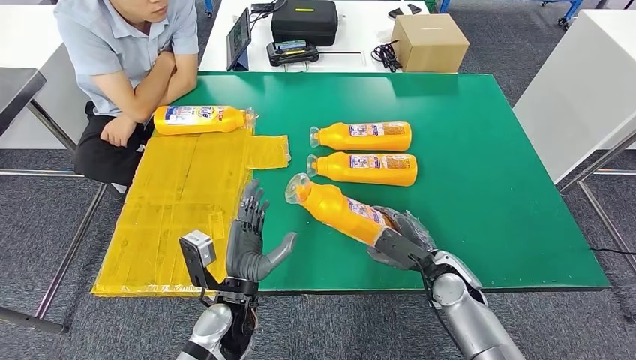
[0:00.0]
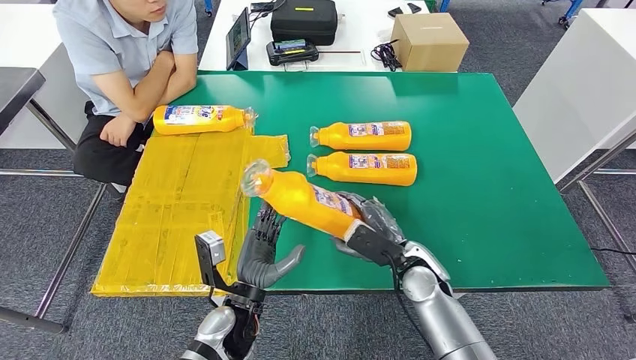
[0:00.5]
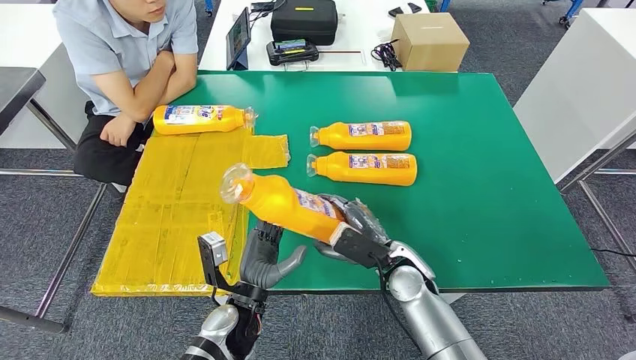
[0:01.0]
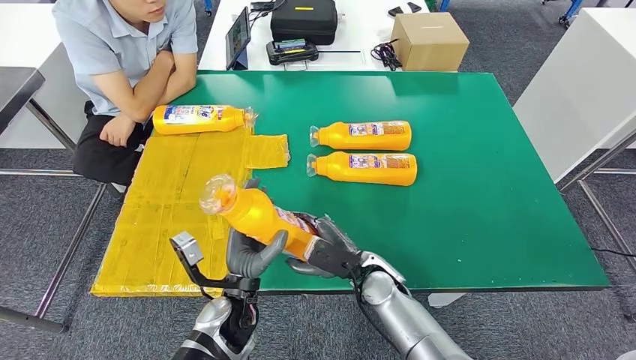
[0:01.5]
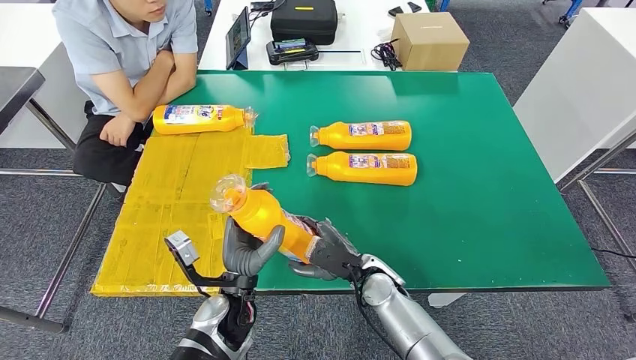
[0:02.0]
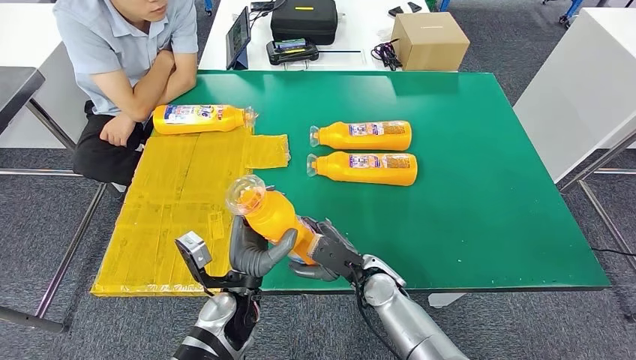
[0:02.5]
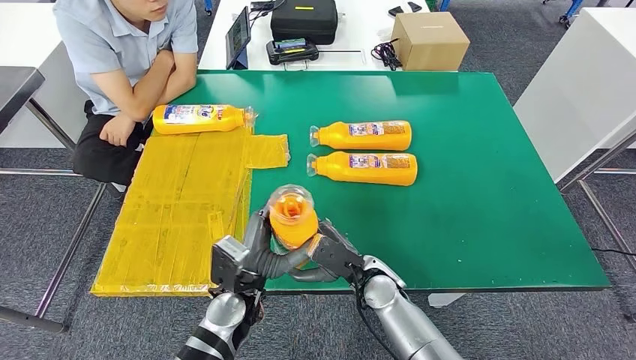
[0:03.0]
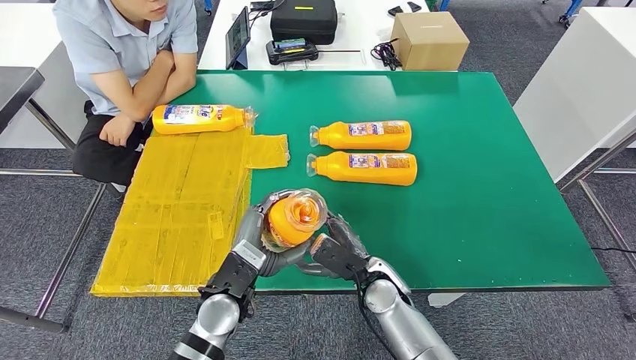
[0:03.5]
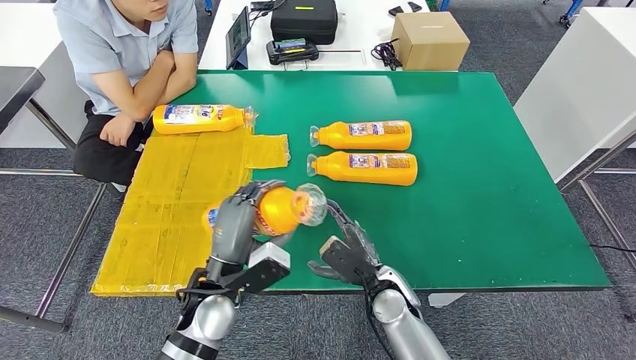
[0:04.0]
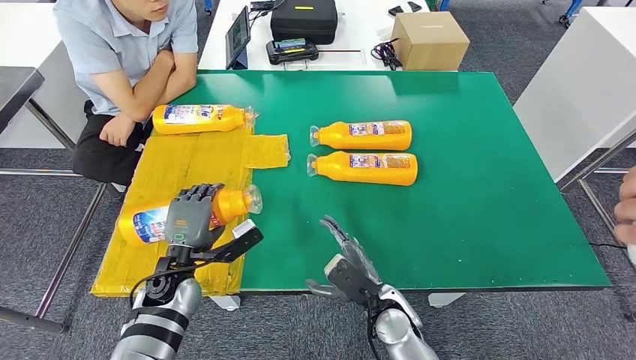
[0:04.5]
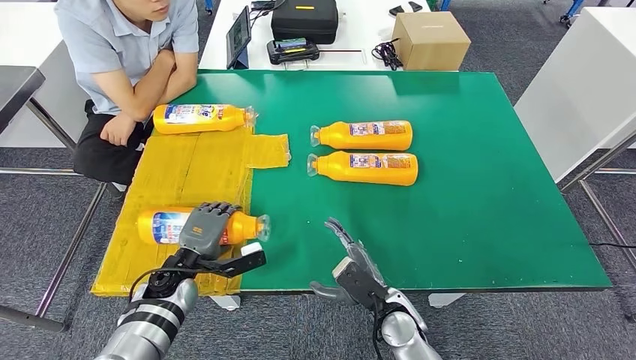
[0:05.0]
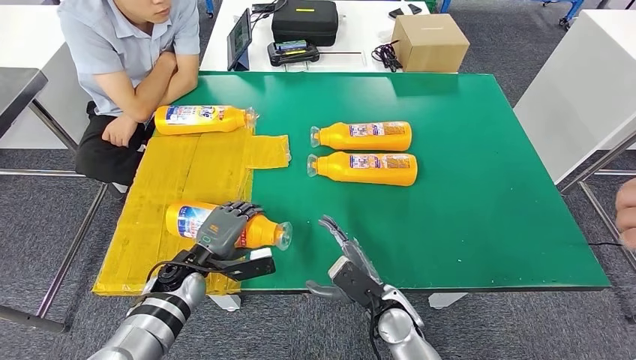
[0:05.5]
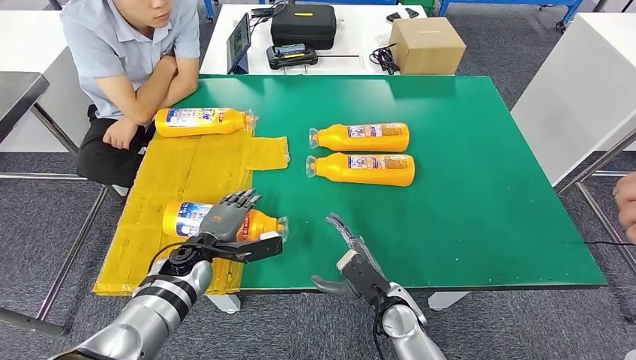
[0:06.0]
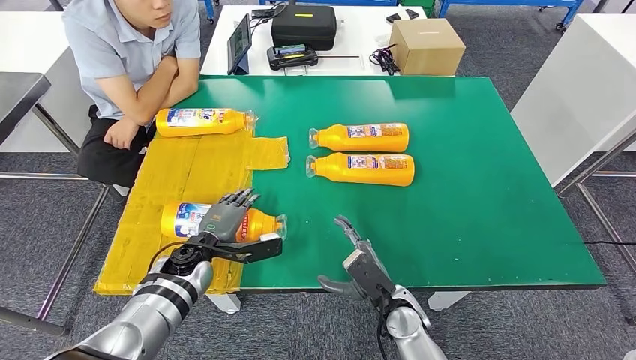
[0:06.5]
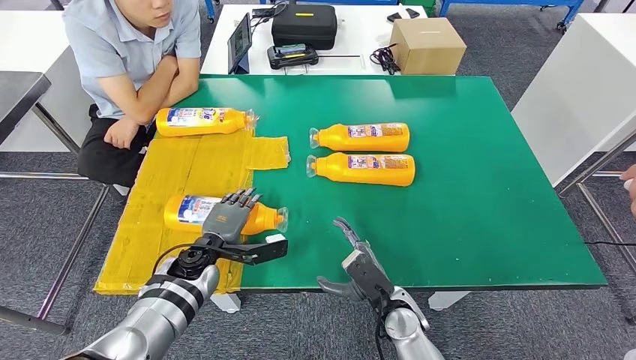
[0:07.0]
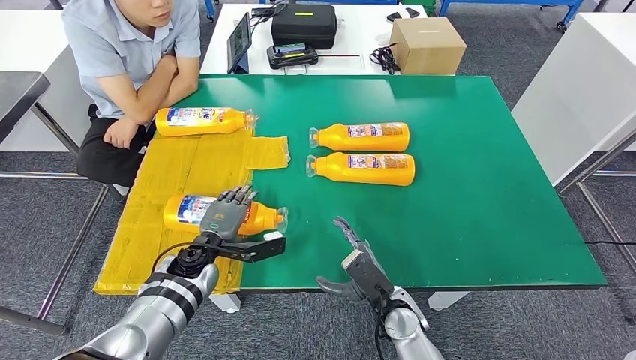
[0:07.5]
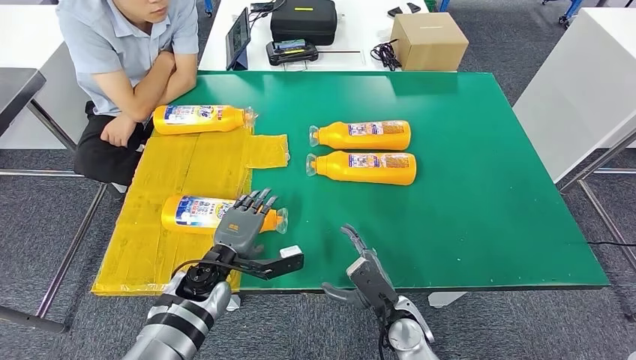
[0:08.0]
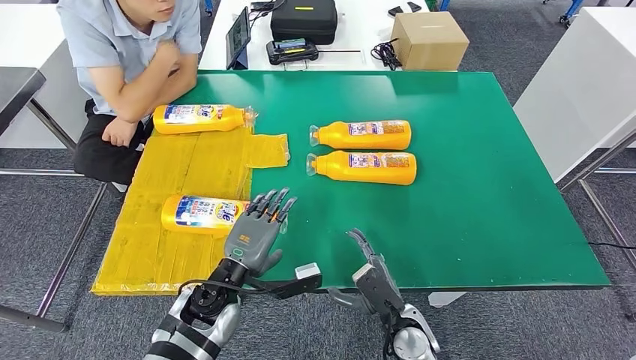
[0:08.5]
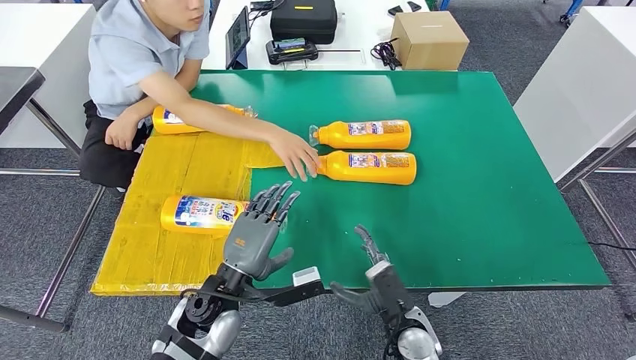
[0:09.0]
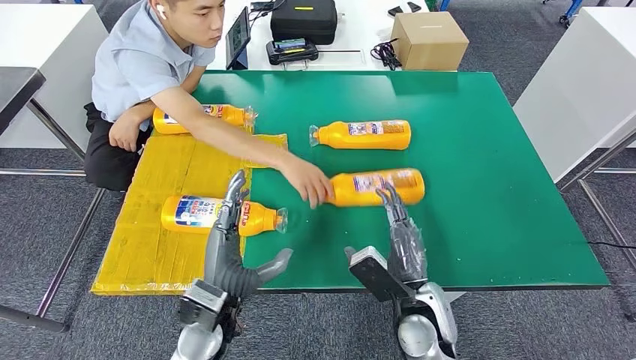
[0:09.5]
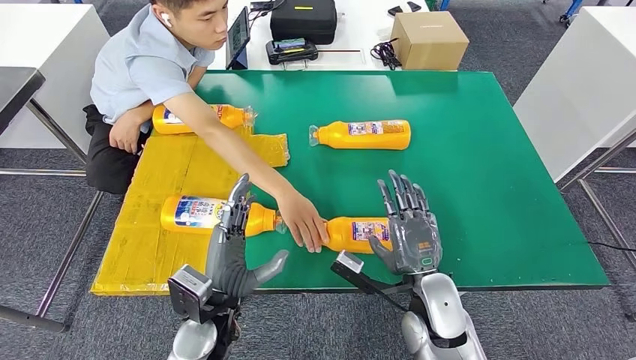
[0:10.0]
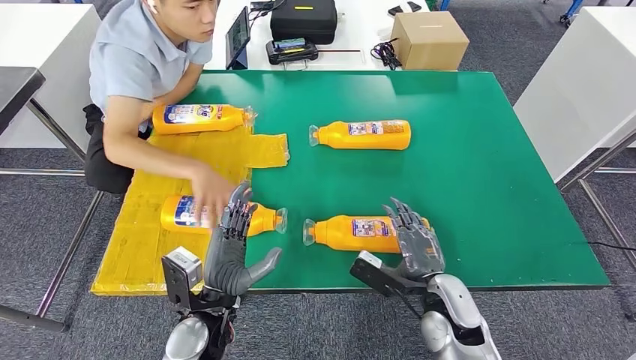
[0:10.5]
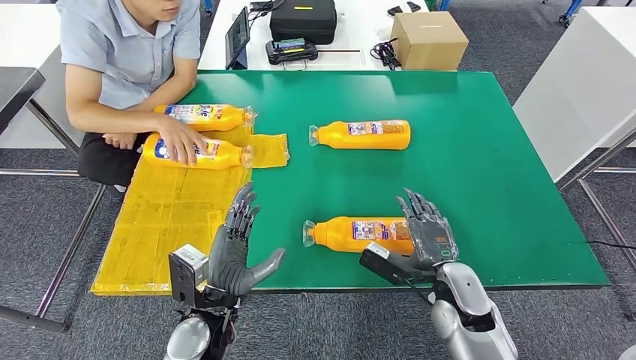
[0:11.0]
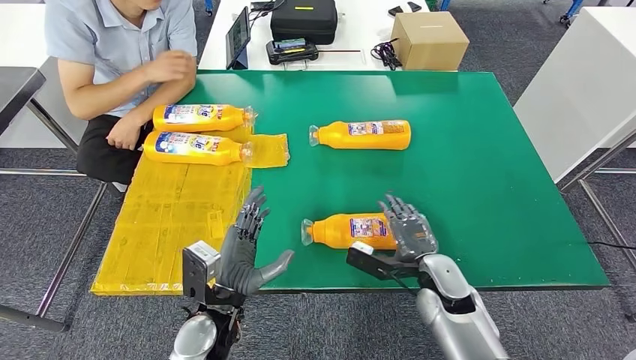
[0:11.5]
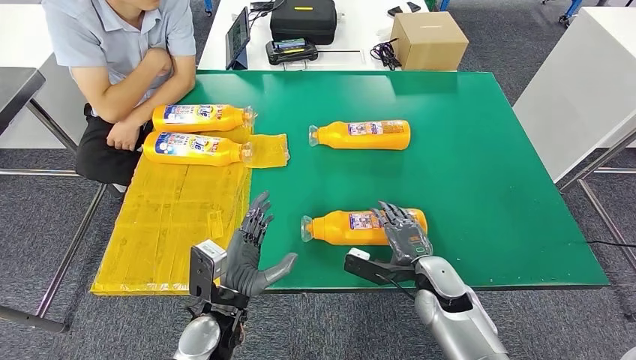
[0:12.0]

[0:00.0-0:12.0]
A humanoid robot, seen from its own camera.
Step, 0:01.0 to 0:04.5: Flip the fast-moving consumer goods bottle to the front side.
0:00.0 to 0:02.0: The right hand shifts about 15 cm to the left.
0:02.0 to 0:04.0: The left hand heads upward, covering roughly 5 cm.

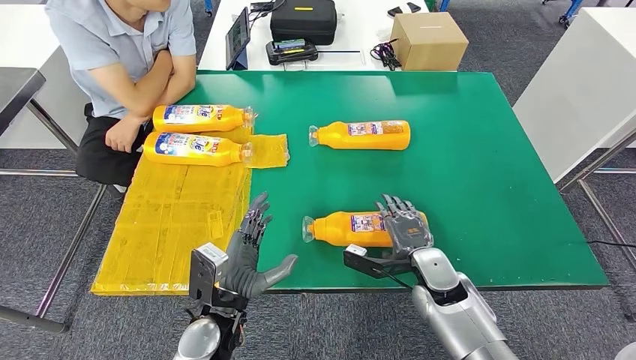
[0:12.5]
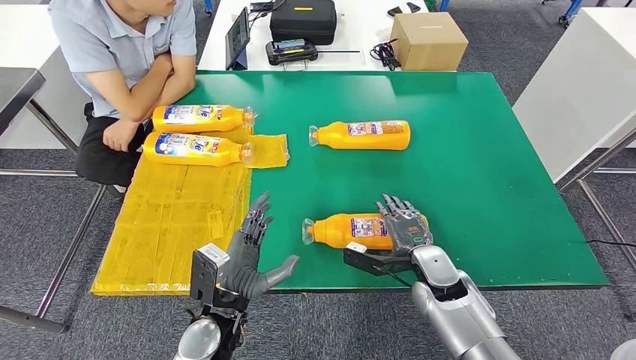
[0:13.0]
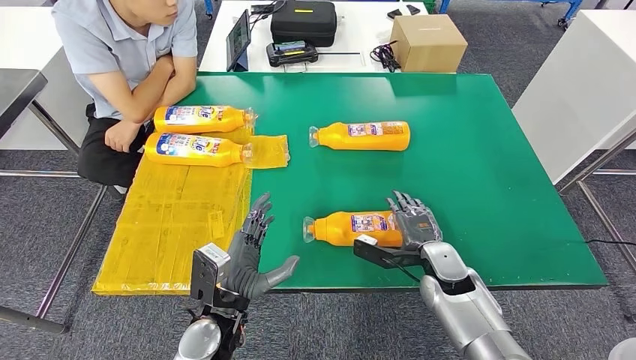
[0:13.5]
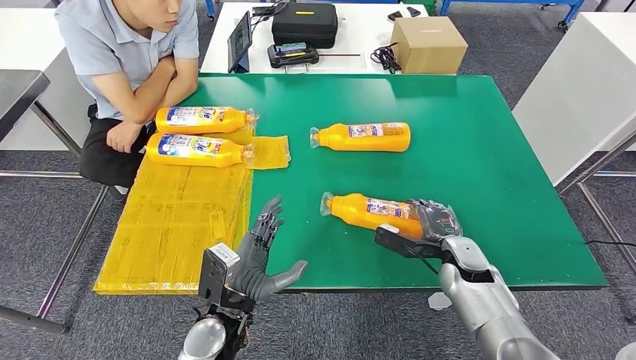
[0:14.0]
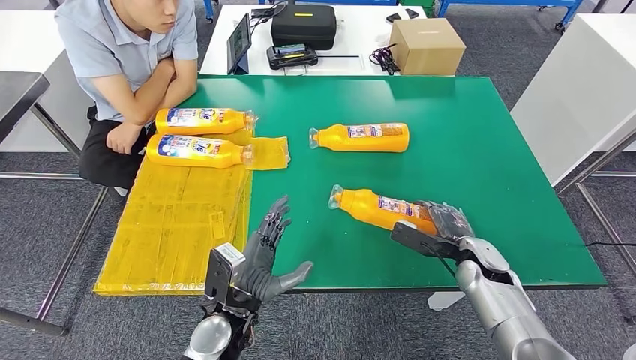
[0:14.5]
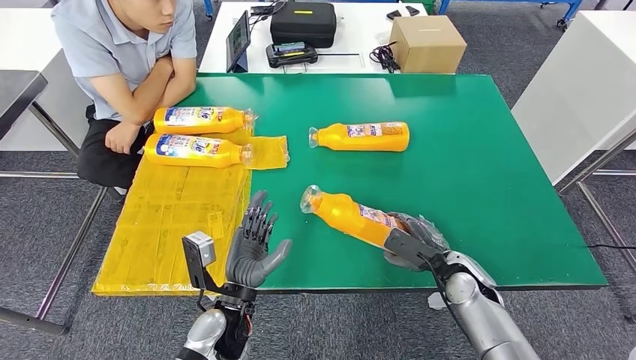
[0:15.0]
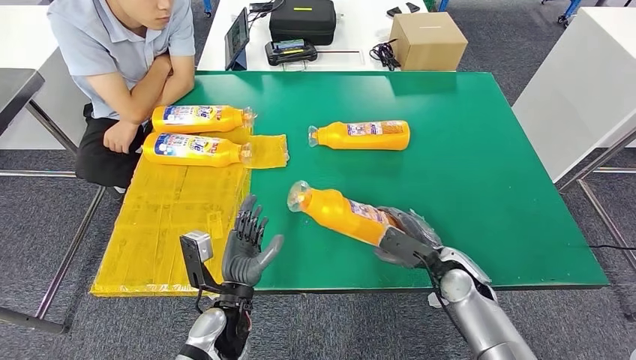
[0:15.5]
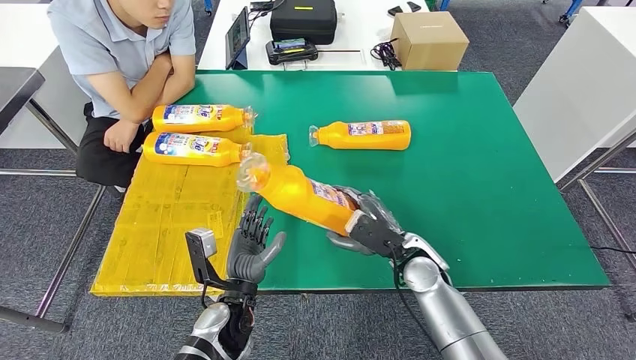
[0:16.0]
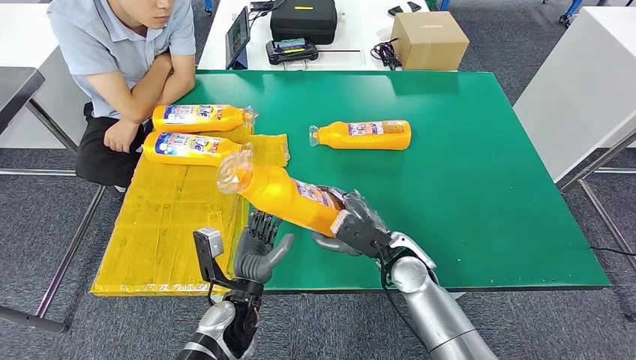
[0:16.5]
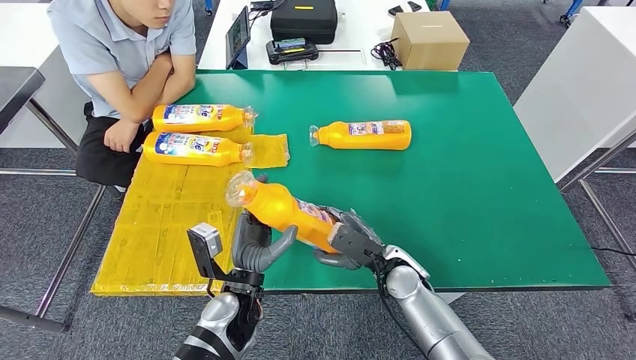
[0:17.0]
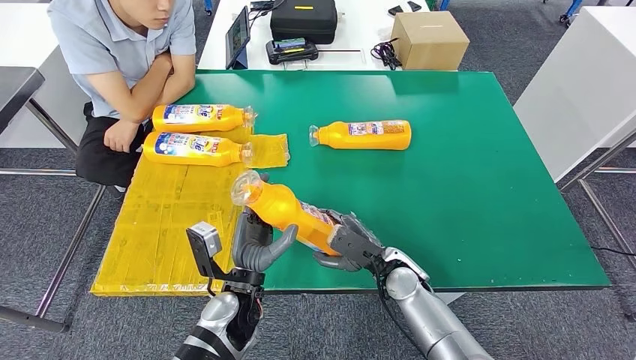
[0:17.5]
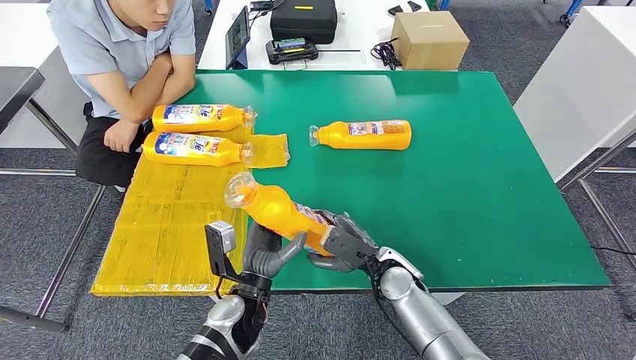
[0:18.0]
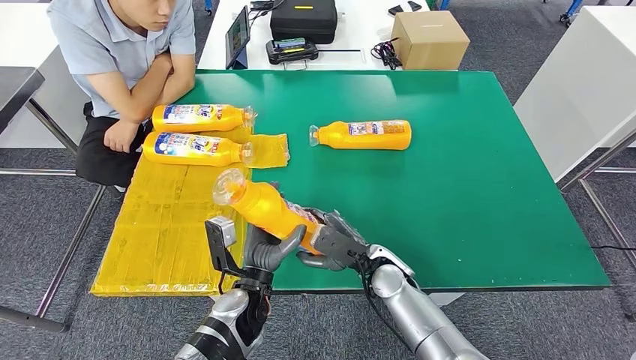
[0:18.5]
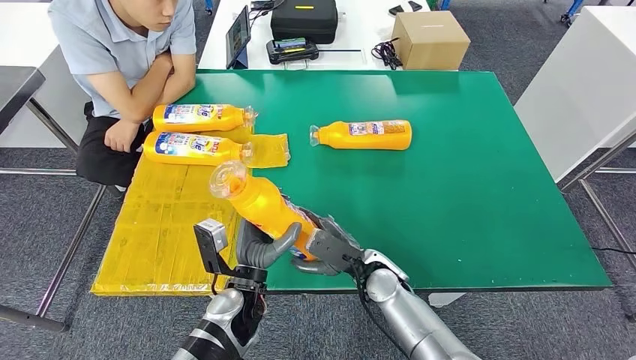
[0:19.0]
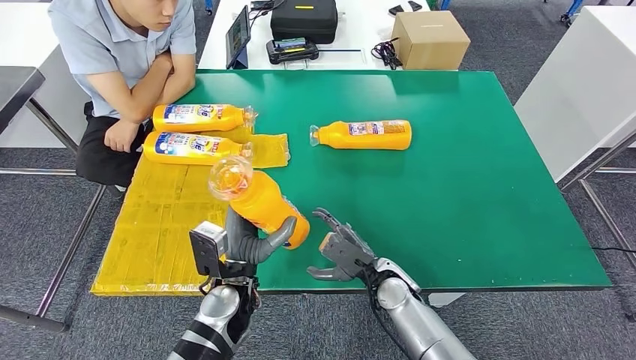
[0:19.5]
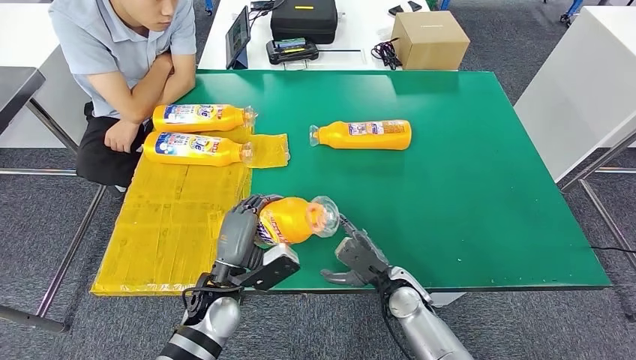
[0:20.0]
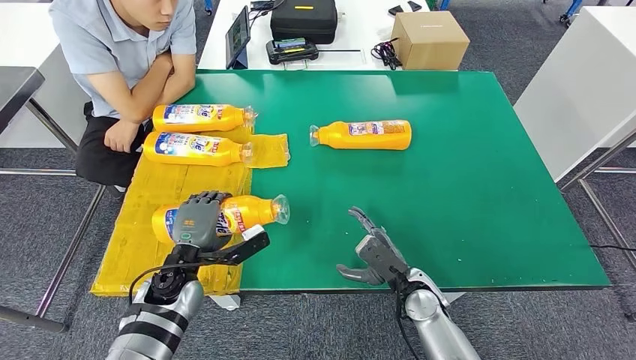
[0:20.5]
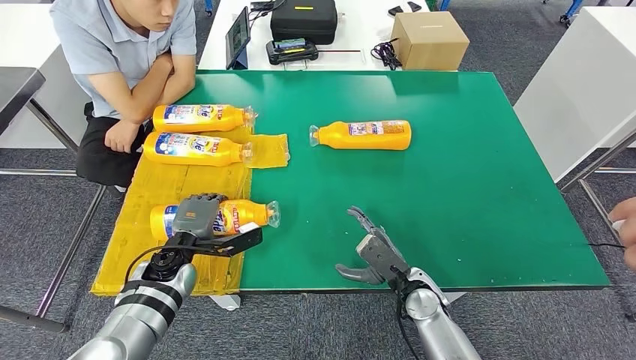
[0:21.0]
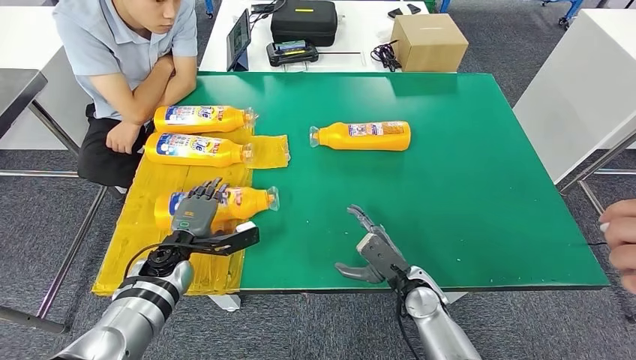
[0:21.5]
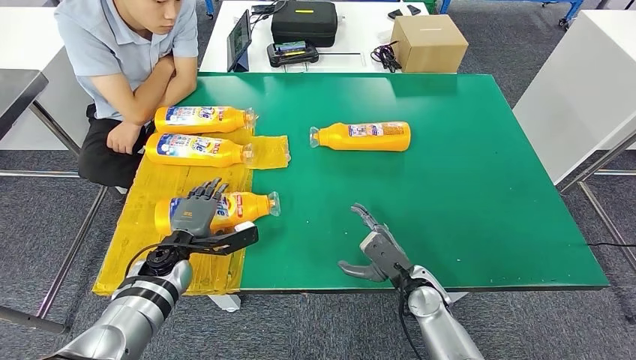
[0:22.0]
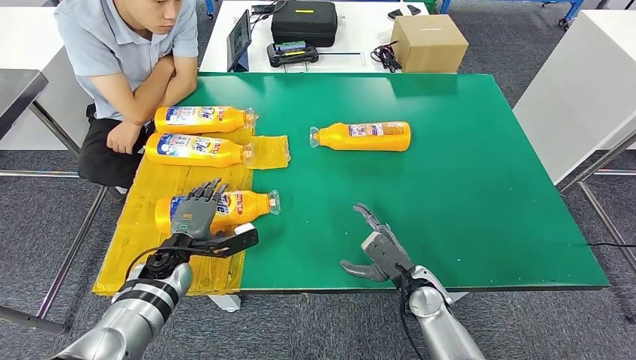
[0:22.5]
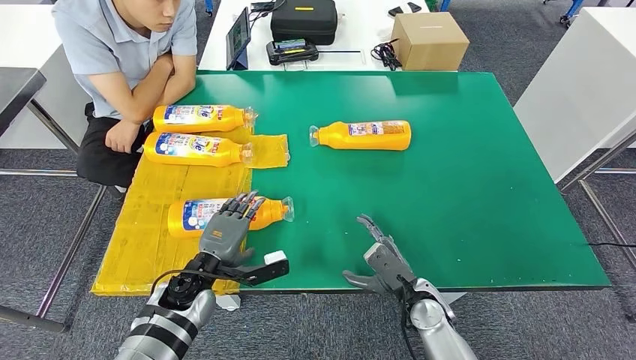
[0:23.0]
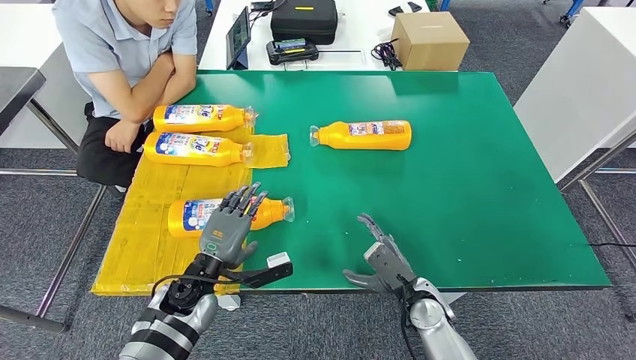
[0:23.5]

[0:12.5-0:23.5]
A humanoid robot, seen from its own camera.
Step, 0:12.5 to 0:15.5: Pick up the fast-moving consumer goods bottle from the table.
Step, 0:16.0 to 0:21.5: Flip the fast-moving consumer goods bottle to the front side.
0:16.0 to 0:18.0: The right hand ends up roughly 5 cm from where it was.
0:18.0 to 0:20.0: The left hand changes place by some 5 cm.
0:21.5 to 0:23.5: The left hand goes about 10 cm backward and to the right.
